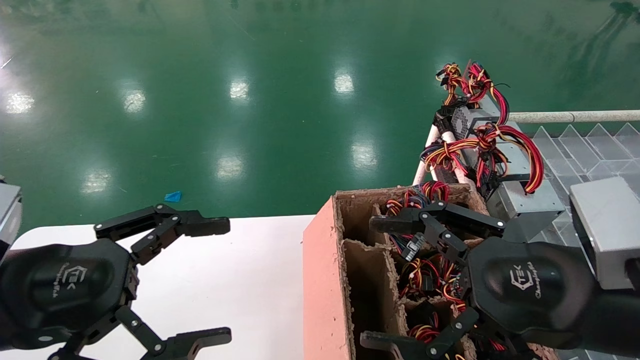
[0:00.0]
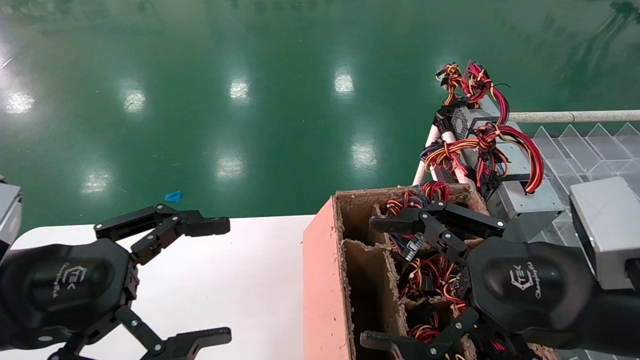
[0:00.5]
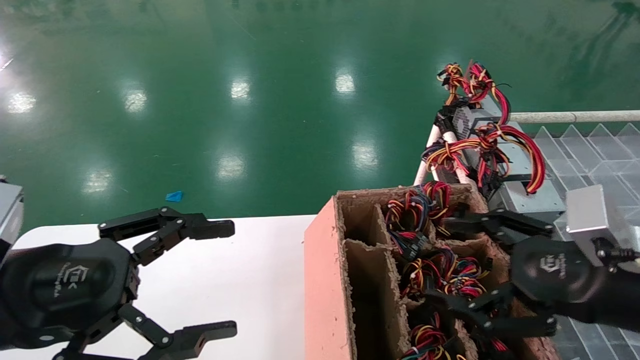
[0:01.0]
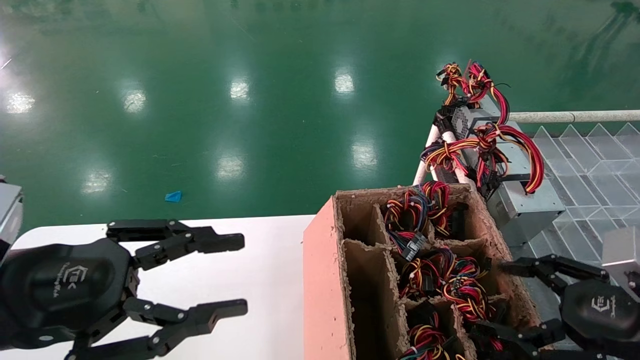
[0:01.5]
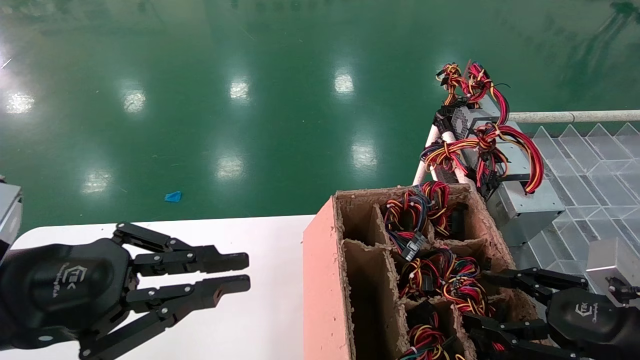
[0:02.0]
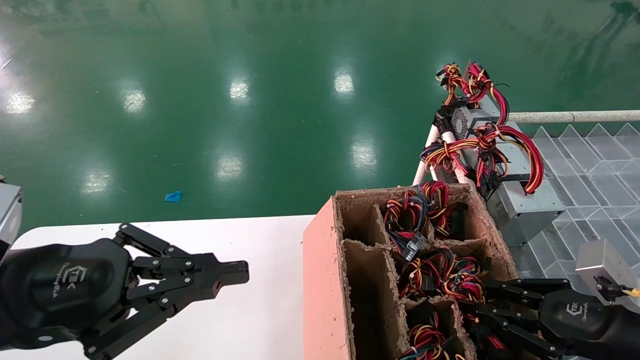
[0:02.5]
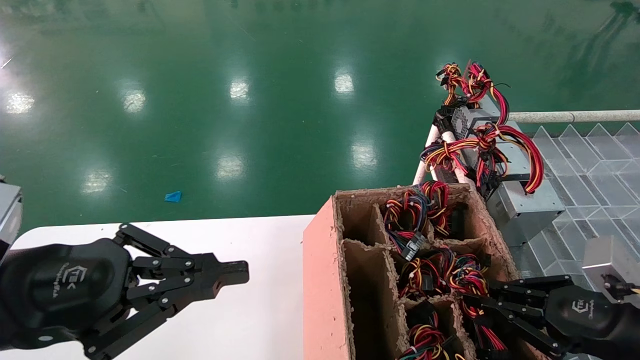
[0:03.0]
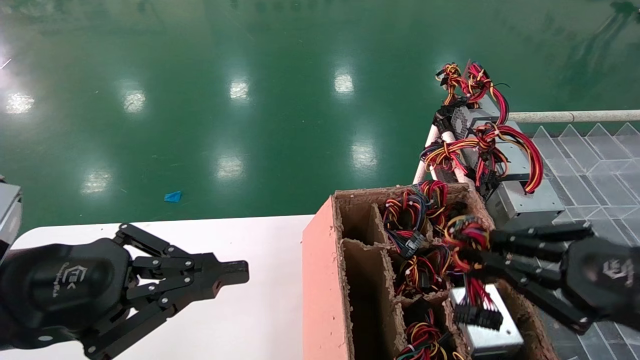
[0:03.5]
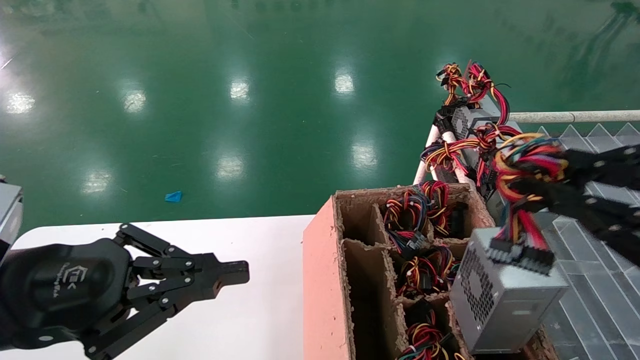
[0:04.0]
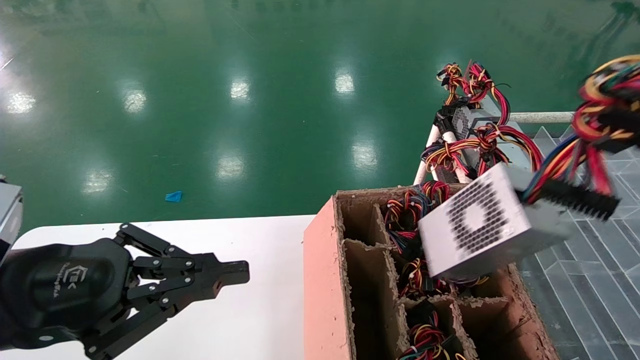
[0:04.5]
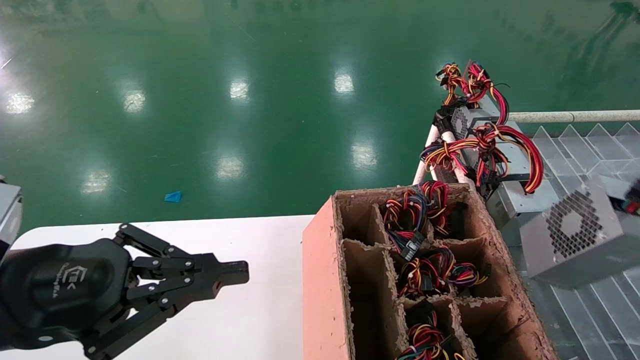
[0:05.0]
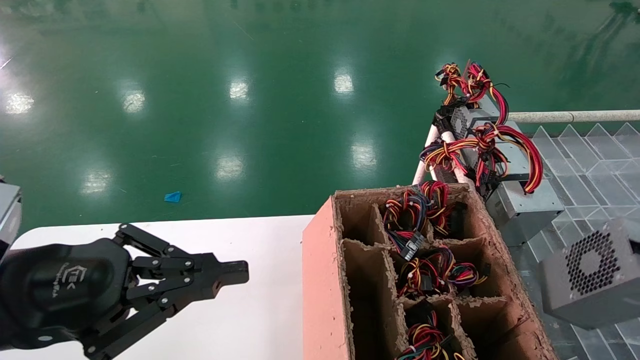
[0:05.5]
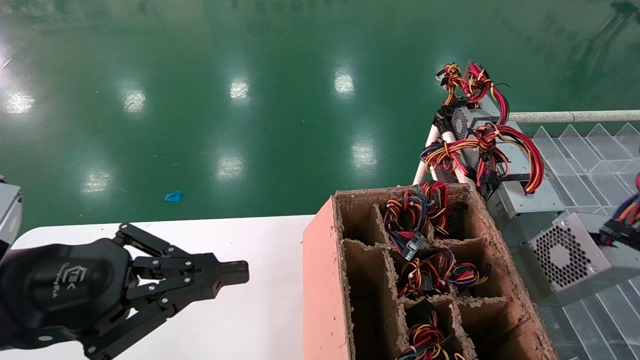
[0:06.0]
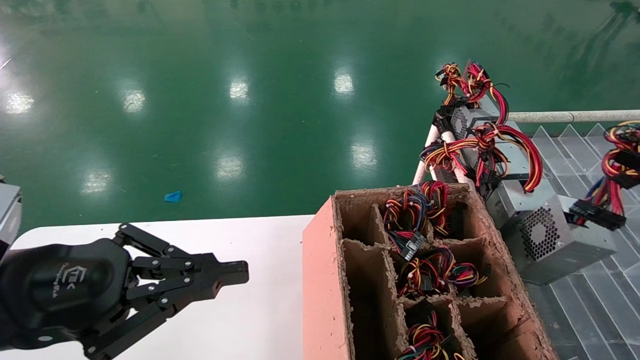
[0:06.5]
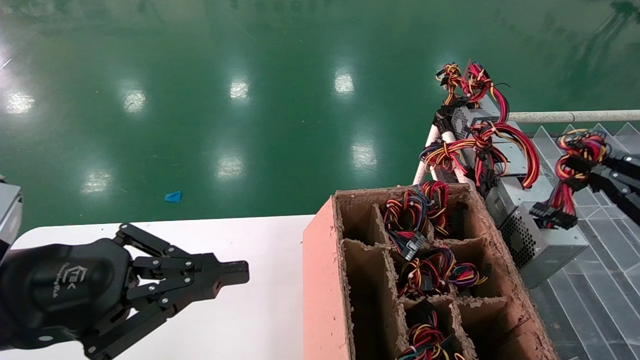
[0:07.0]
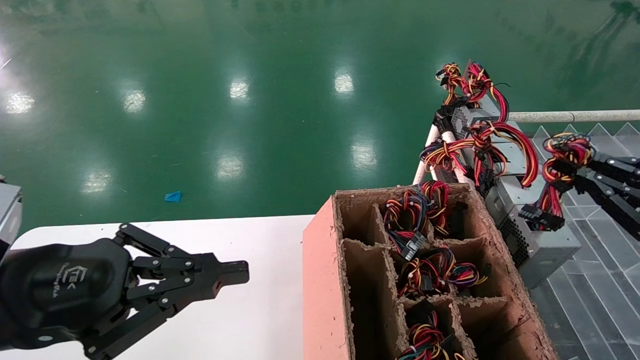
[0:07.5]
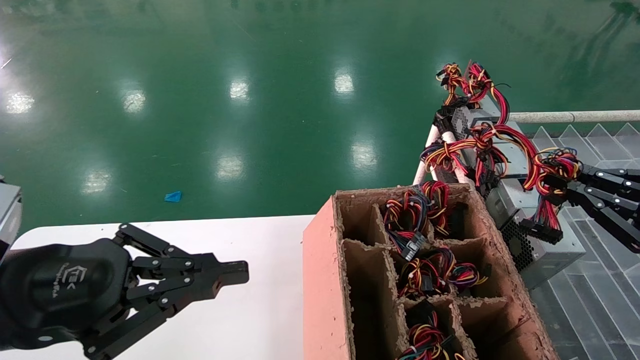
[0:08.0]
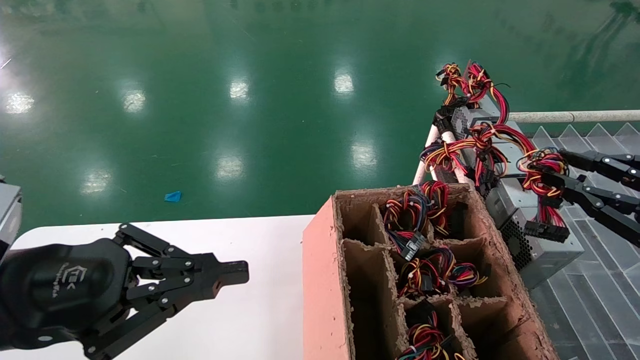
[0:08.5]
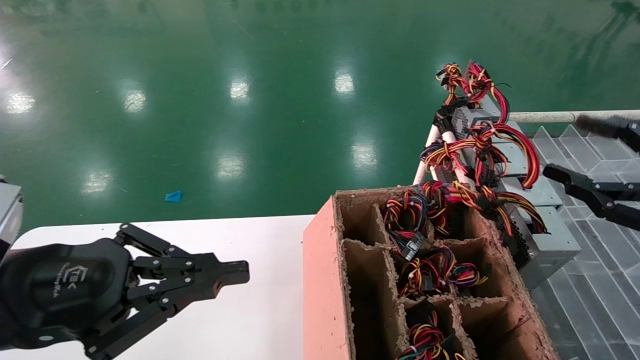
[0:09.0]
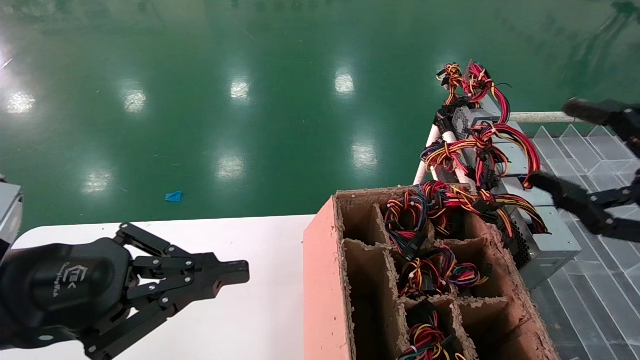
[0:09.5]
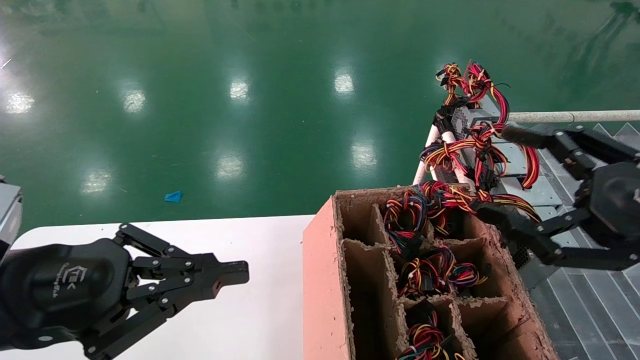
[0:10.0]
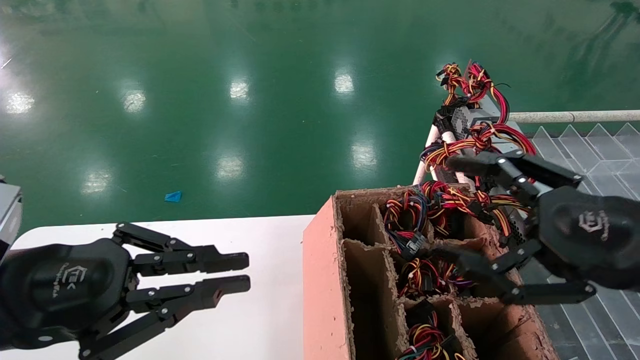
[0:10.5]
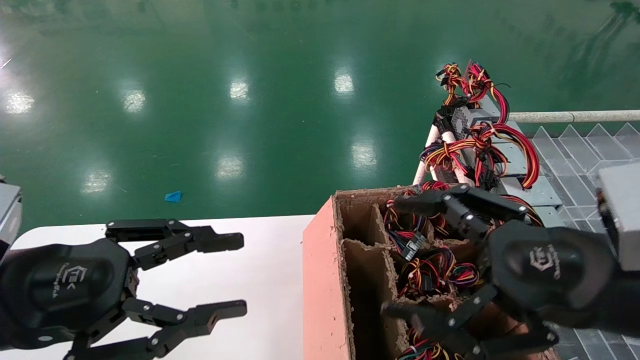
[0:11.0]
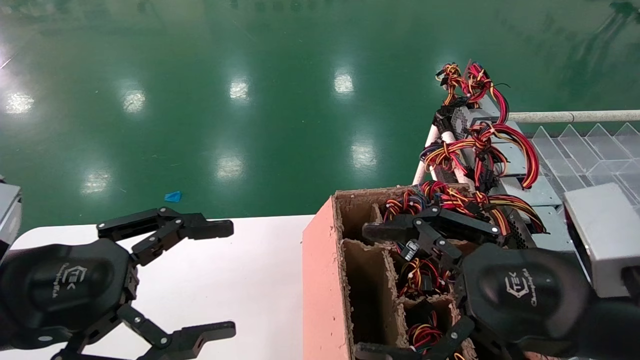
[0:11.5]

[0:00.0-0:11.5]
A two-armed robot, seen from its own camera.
Step, 0:01.0 to 0:02.5: Grab the main unit power supply from the containment box.
Step, 0:03.0 to 0:08.0: Place the main unit power supply in the designated area.
0:00.0 to 0:02.0: The right gripper travels to the right and downward by some 15 cm. Meanwhile the left gripper closes up.
0:02.0 to 0:04.0: The right gripper heads upward and backward, covering roughly 15 cm, and closes its fingers.
0:04.0 to 0:06.0: The right gripper is displaced to the right and downward by roughly 15 cm.
0:06.0 to 0:07.5: The right gripper travels forward by about 10 cm.
0:07.5 to 0:09.5: The right gripper is displaced to the left by about 5 cm, and opens its fingers.
0:09.5 to 0:11.5: The left gripper opens, while the right gripper goes some 15 cm to the left.

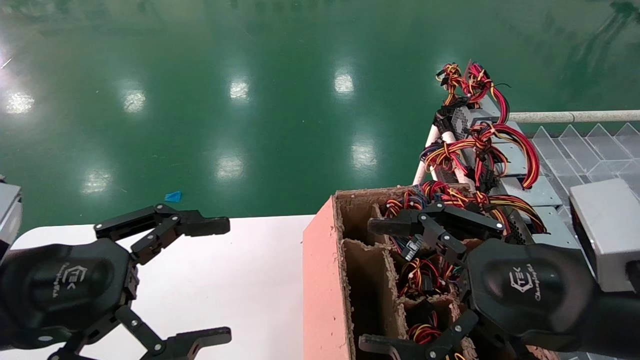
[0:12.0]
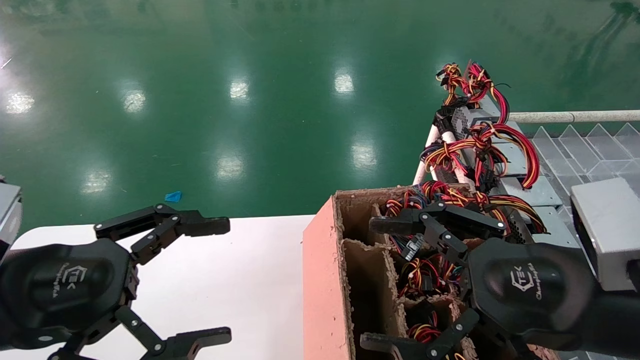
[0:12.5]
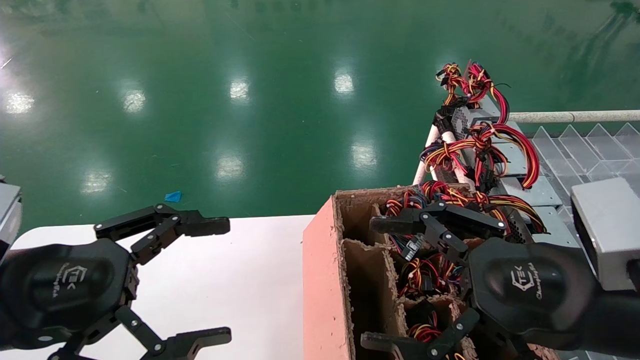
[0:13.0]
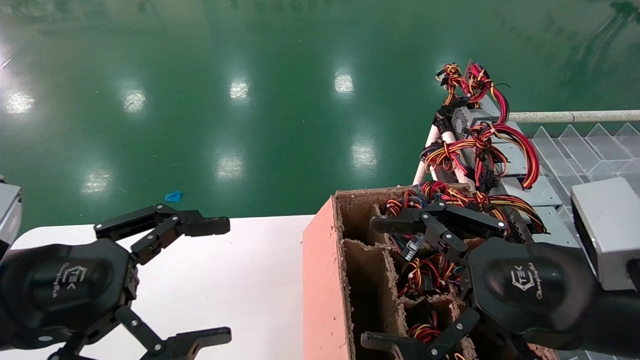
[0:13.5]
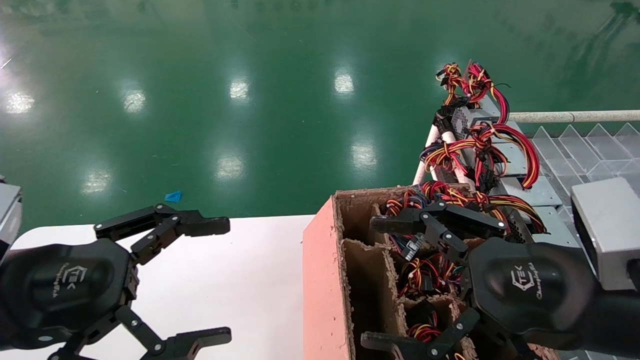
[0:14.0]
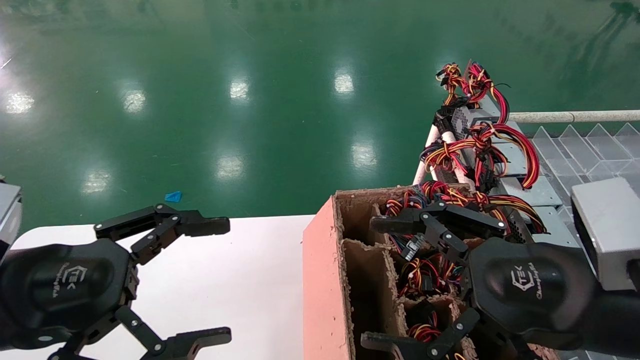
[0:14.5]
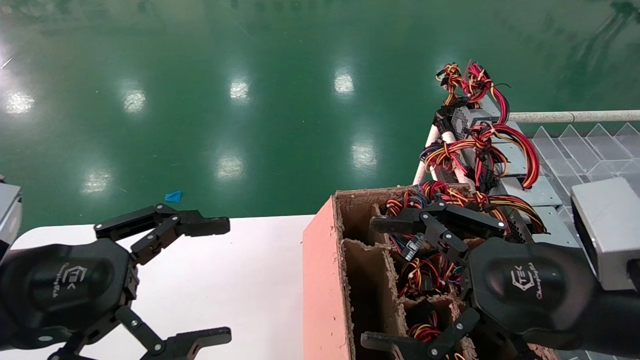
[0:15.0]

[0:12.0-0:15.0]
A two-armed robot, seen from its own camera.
0:12.0 to 0:15.0: Neither gripper changes place.

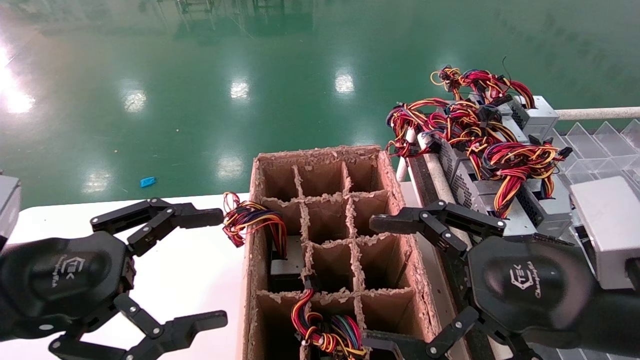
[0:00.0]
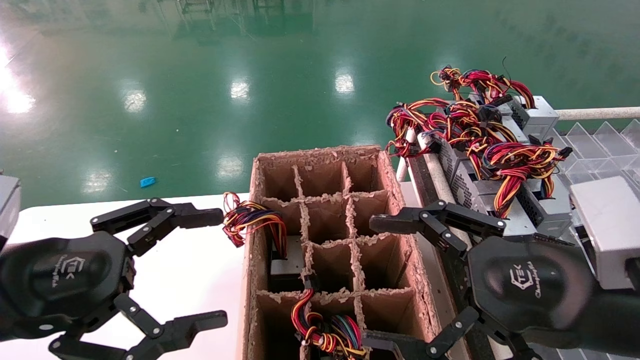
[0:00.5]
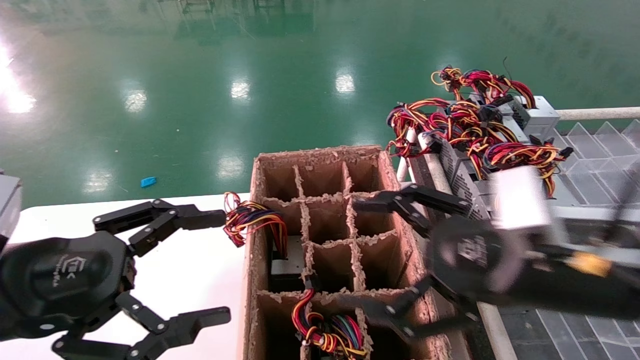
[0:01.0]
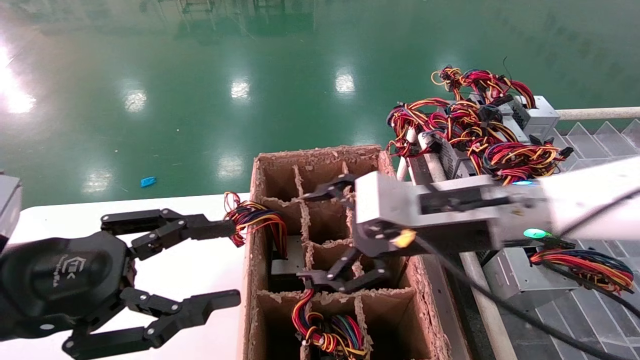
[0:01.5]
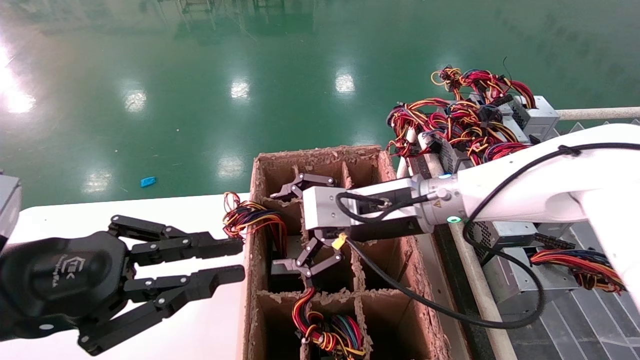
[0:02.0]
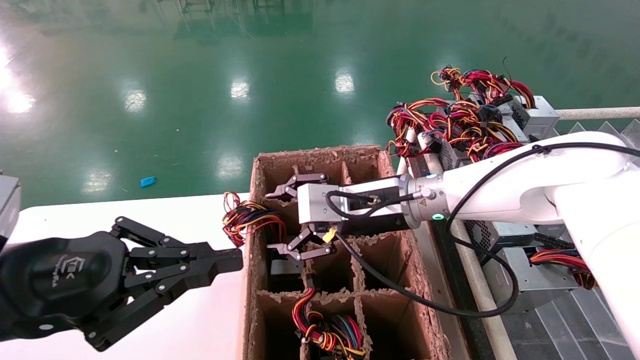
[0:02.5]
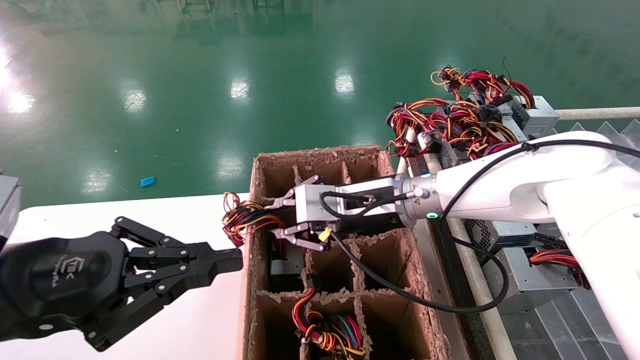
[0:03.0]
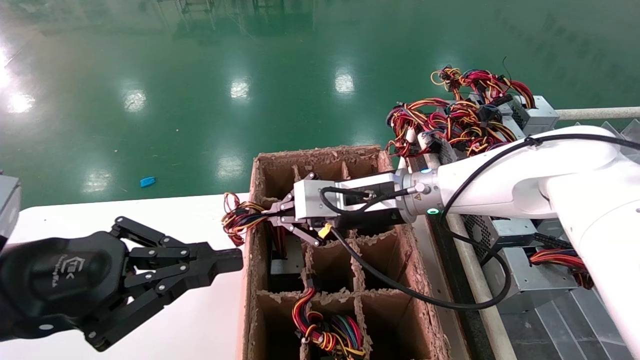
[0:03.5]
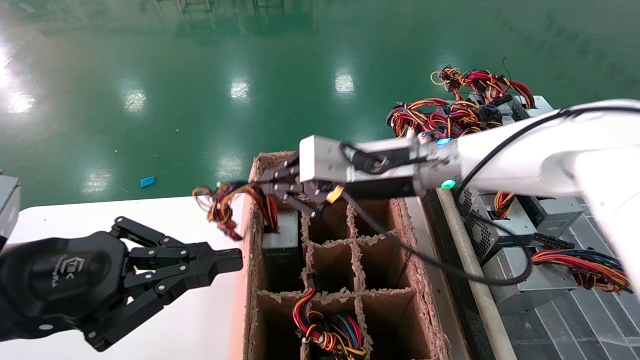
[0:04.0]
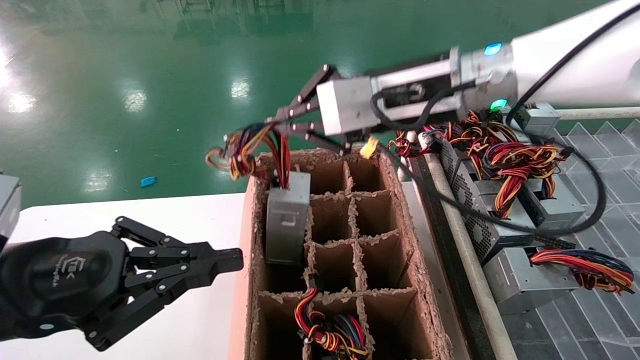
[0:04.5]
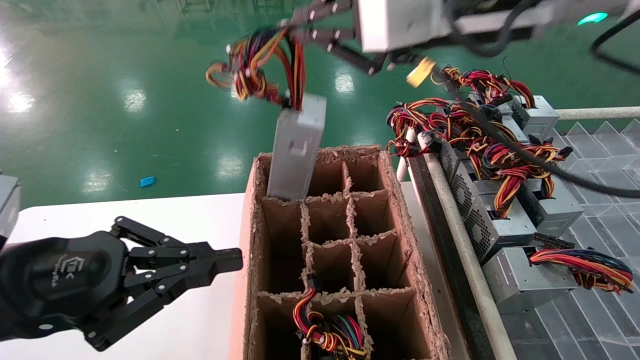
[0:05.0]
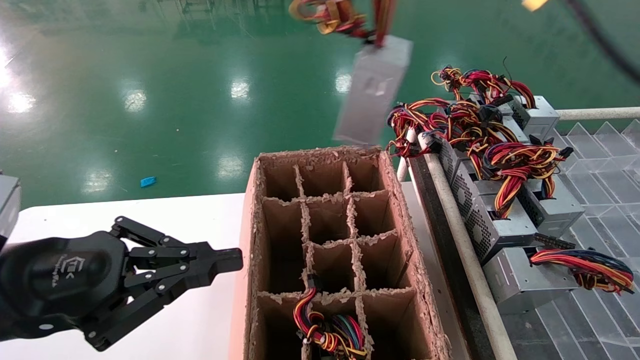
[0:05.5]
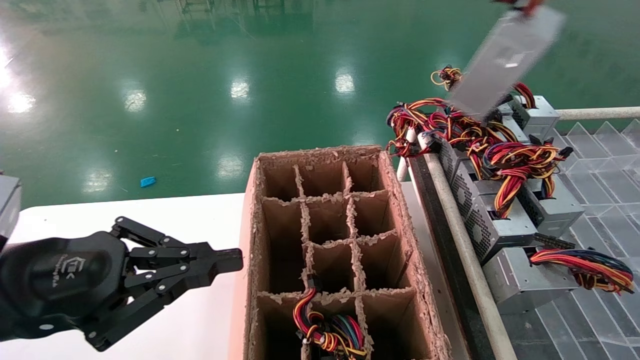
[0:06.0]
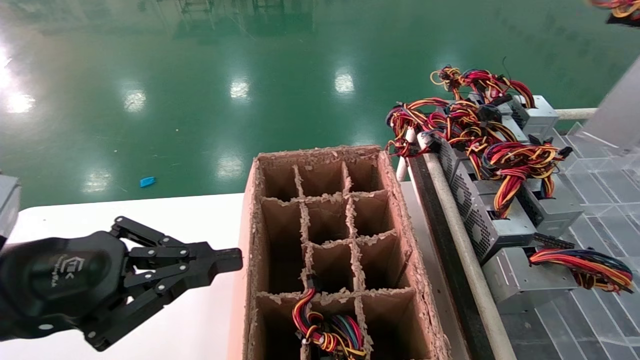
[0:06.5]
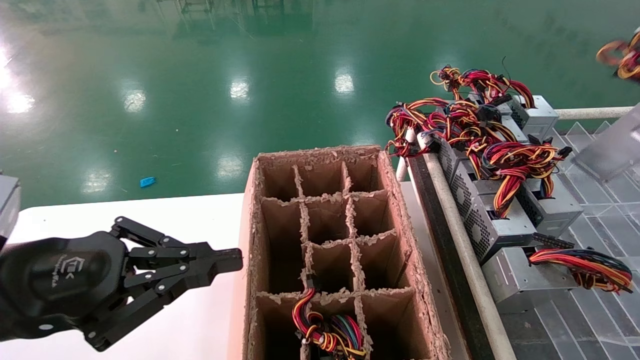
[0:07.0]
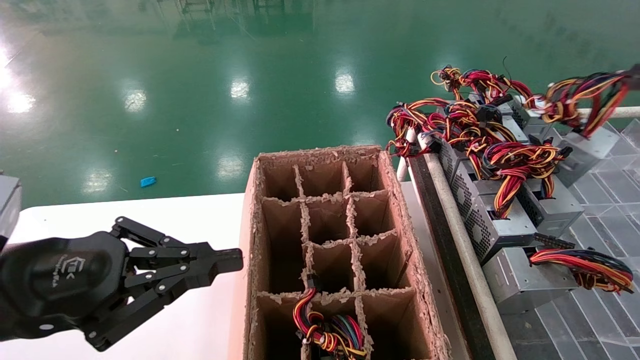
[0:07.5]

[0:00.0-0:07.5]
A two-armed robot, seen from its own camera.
Step, 0:01.5 to 0:03.0: Grab the main unit power supply from the containment box.
0:00.0 to 0:02.0: The left gripper closes. The right gripper moves forward and to the left, about 25 cm.
0:02.0 to 0:04.0: The right gripper shifts some 5 cm upward, and closes.
0:04.0 to 0:05.5: The right gripper moves upward, backward and to the right, about 30 cm.
0:05.5 to 0:07.5: The right gripper goes some 25 cm to the right and downward.
